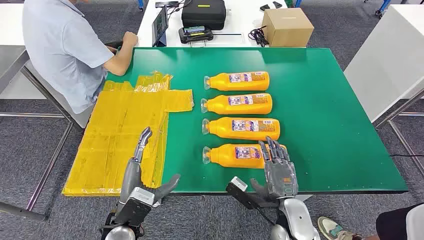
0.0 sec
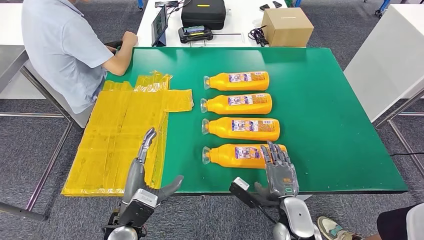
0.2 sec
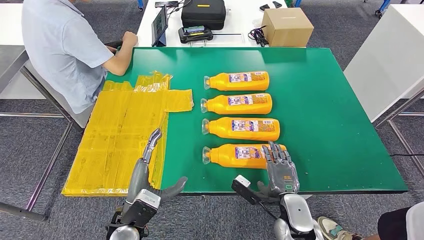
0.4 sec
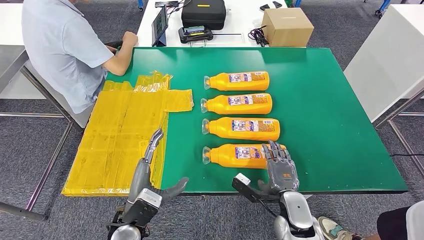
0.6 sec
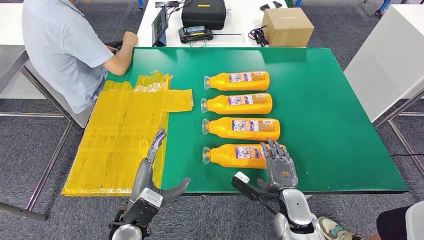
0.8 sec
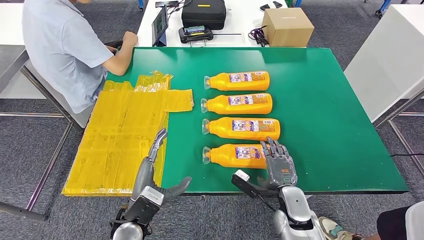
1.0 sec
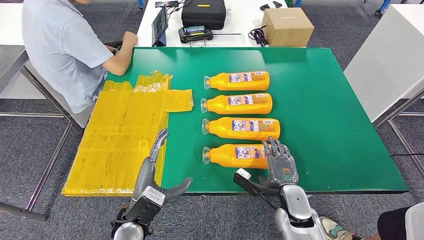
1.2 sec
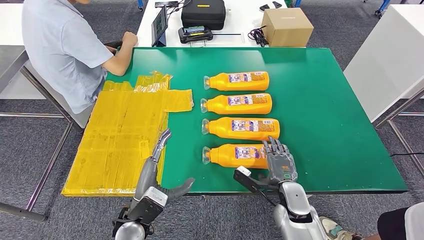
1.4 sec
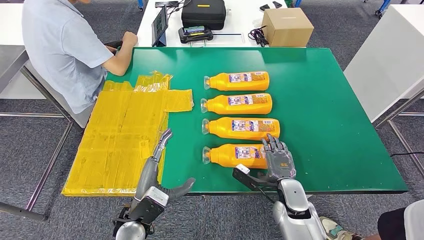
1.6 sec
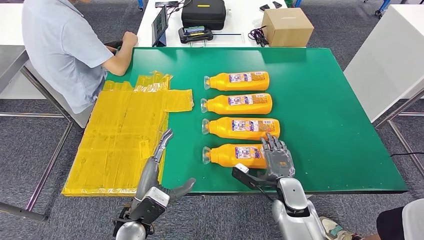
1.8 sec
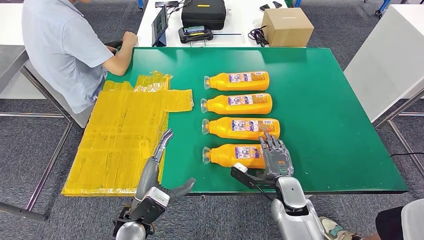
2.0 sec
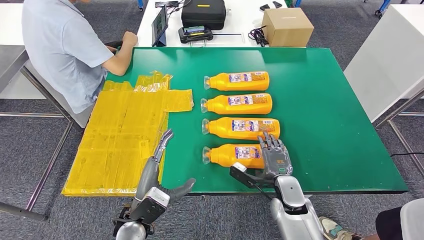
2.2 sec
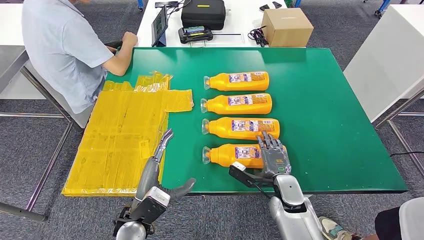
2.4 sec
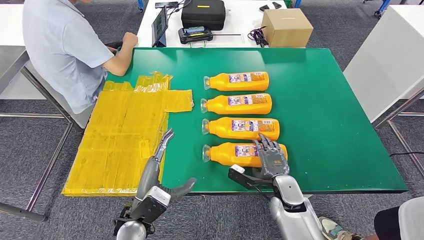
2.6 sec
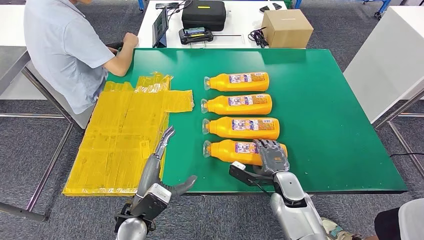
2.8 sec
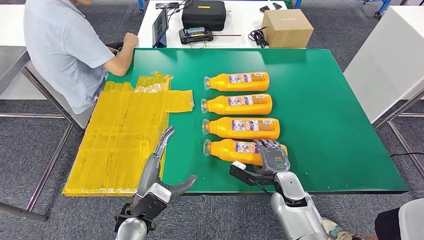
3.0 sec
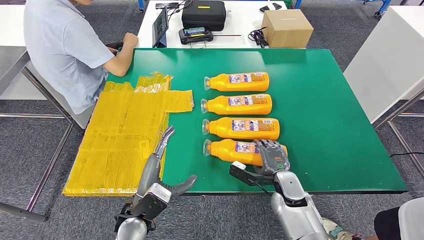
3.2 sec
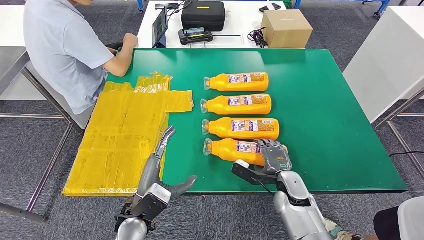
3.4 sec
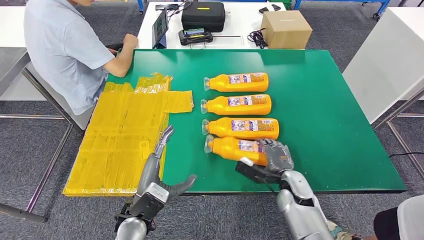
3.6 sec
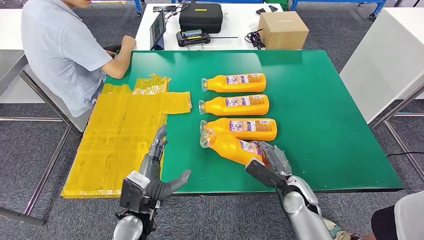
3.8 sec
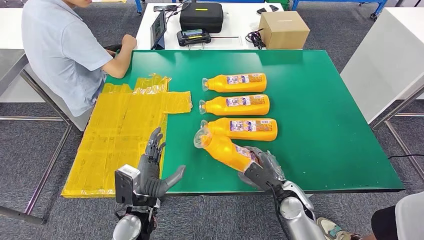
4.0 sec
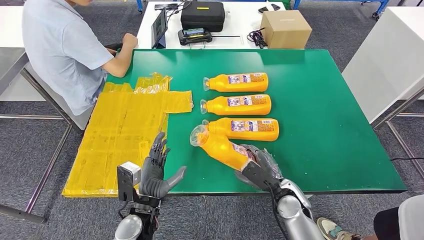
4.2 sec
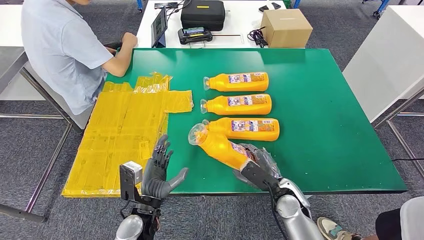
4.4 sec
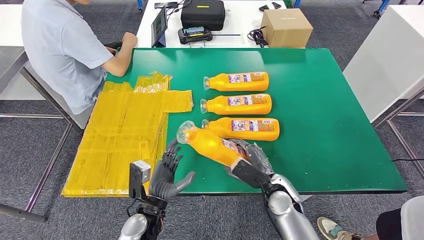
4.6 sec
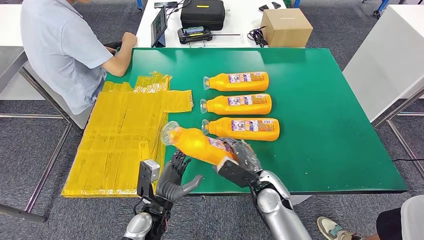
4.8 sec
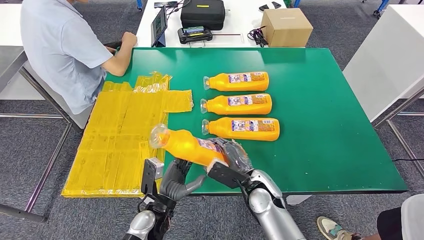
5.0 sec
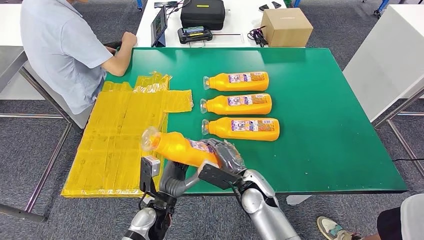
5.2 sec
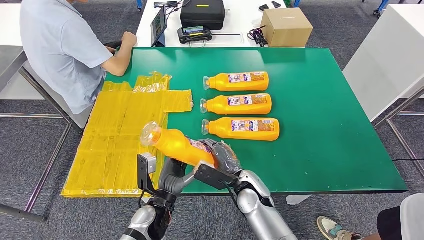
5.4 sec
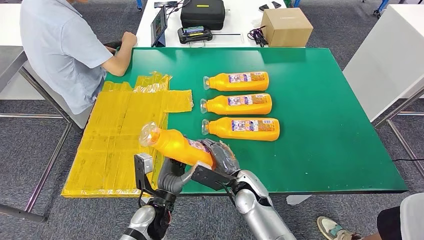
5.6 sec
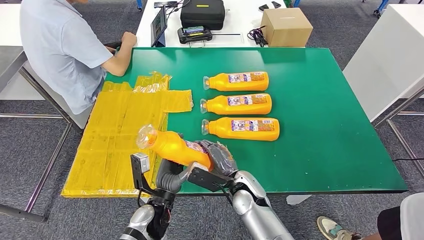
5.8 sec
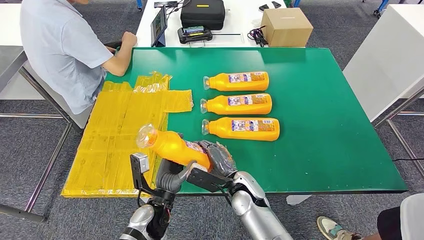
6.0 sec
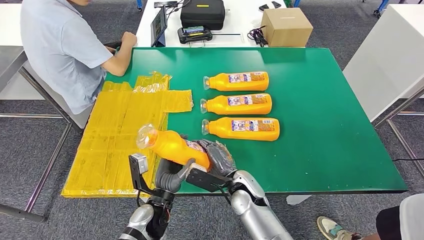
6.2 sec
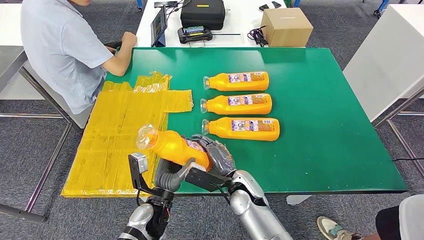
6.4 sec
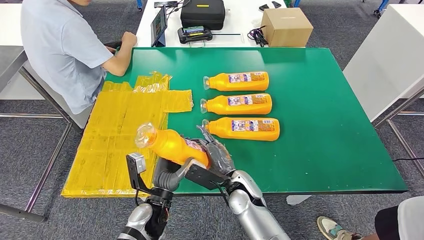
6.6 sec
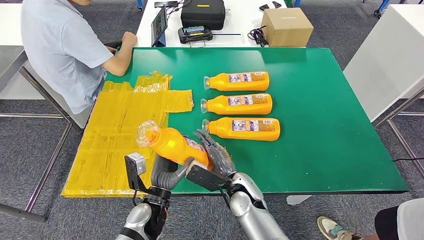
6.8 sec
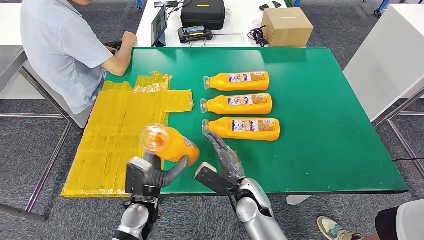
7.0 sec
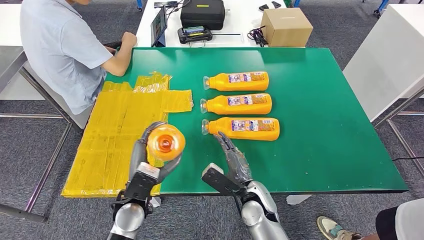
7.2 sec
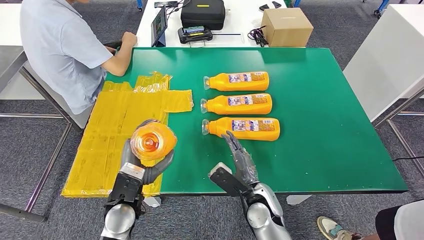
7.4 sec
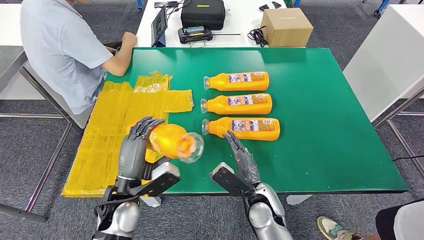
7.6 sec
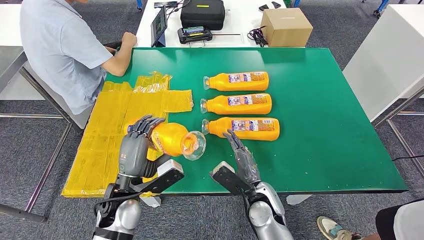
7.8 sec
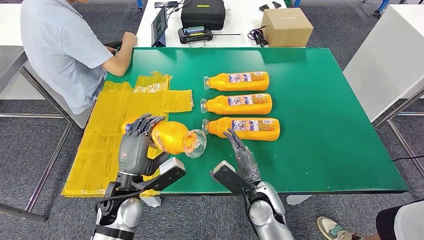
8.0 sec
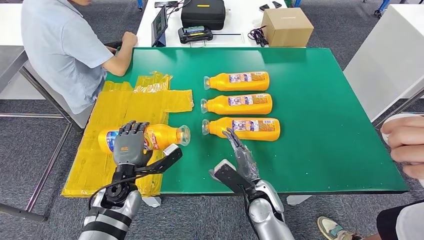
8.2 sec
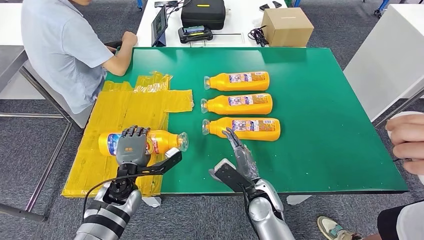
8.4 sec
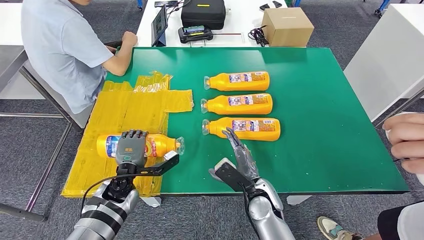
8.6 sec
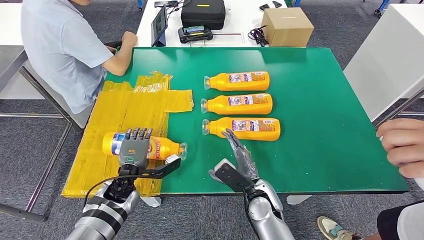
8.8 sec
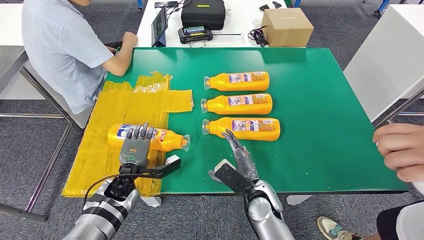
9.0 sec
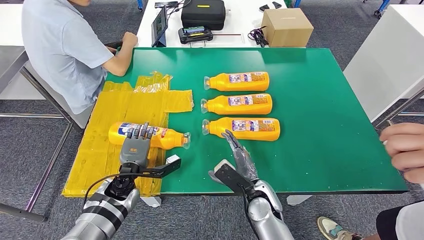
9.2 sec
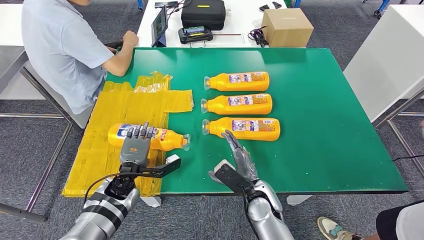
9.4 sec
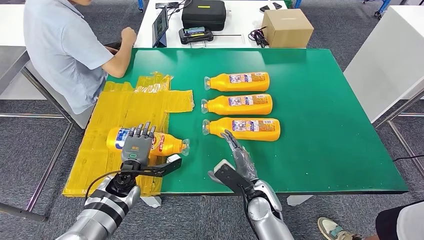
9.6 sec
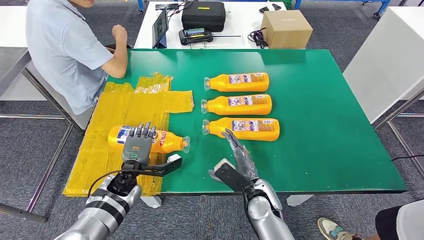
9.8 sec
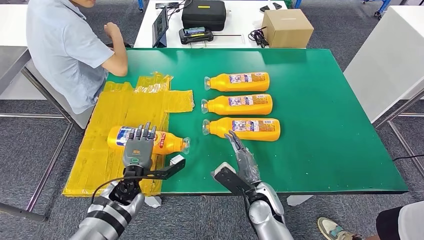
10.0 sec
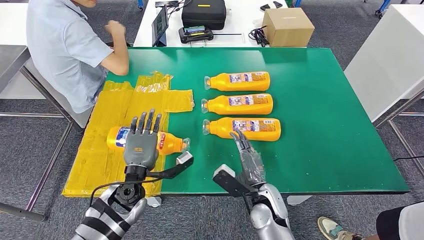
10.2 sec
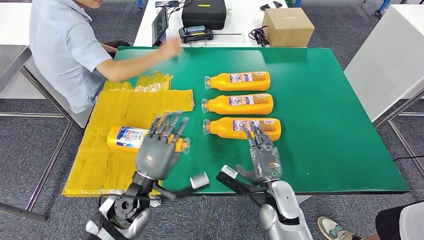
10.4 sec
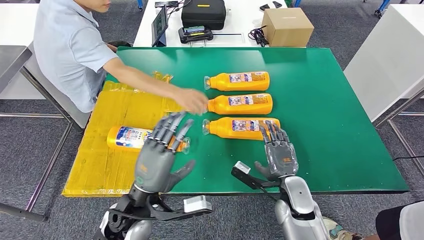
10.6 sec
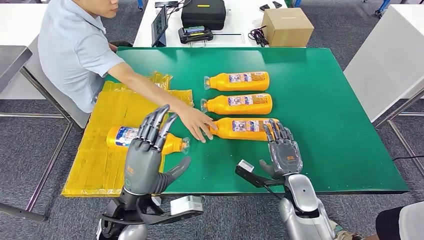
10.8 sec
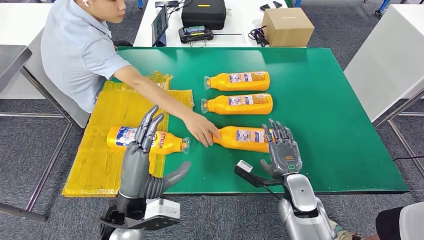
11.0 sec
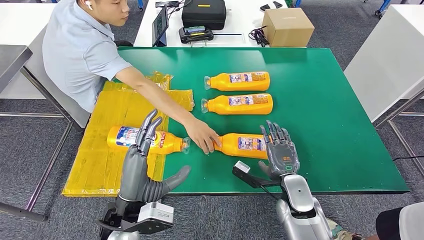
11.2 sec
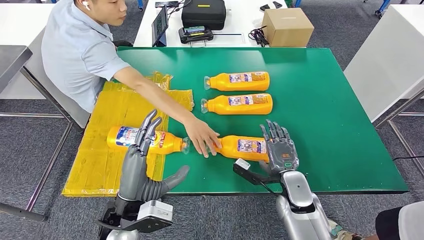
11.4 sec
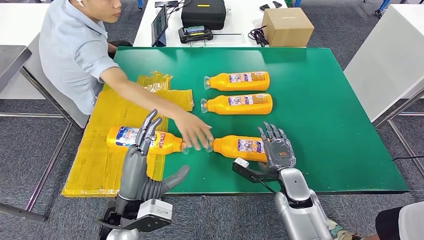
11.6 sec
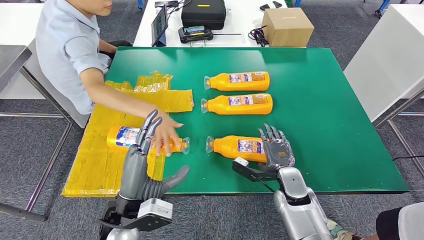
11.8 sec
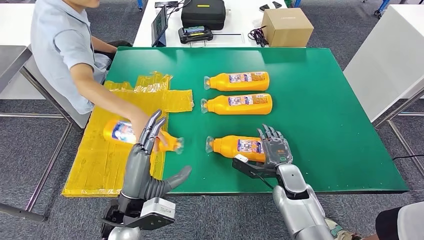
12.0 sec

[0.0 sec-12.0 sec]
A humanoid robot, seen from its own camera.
Step, 0.0 sec to 4.8 sec: Take the fast-moving consumer goods bottle from the table.
Step, 5.2 sec to 9.8 sec: Flip the fast-moving consumer goods bottle to the front side.
1.6 sec to 3.0 sec: The hands move only a little.
4.4 sec to 6.0 sec: The right hand shifts about 10 cm to the left.
6.0 sec to 7.6 sec: The left hand shifts about 10 cm upward and to the left. The right hand ends up about 5 cm from where it was.
7.6 sec to 9.0 sec: The left hand shifts approximately 10 cm downward and forward.
9.0 sec to 10.4 sec: The left hand travels upward, backward and to the right by some 10 cm.
10.4 sec to 12.0 sec: The right hand heads forward and to the right, covering some 10 cm; the left hand shifts by some 5 cm.

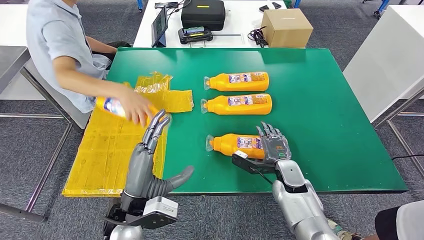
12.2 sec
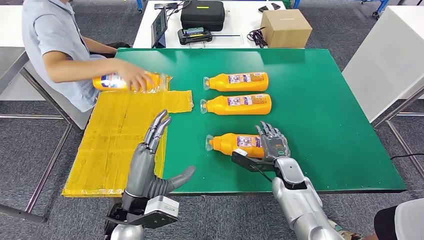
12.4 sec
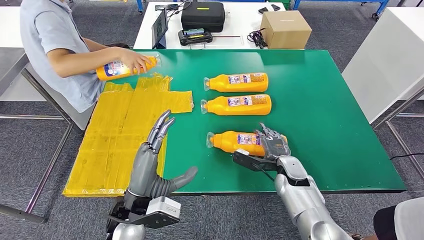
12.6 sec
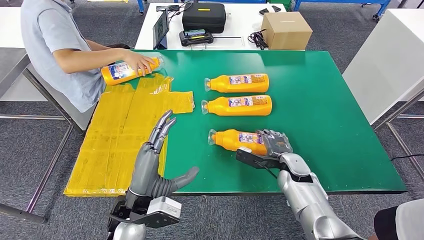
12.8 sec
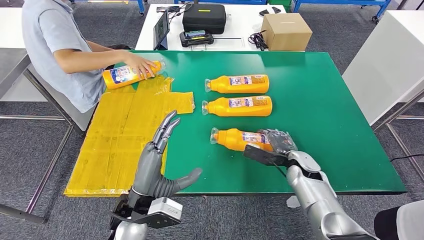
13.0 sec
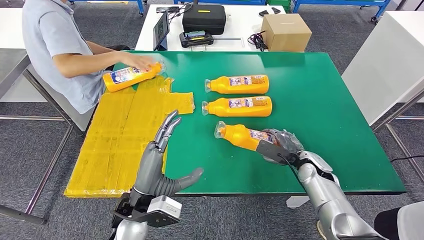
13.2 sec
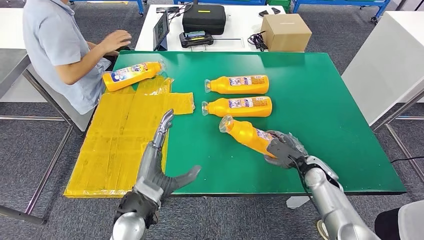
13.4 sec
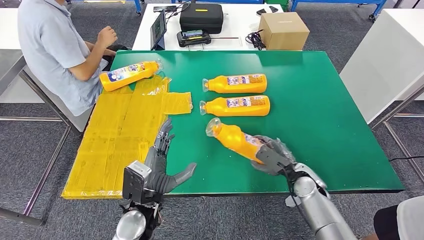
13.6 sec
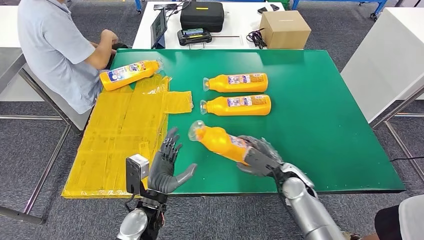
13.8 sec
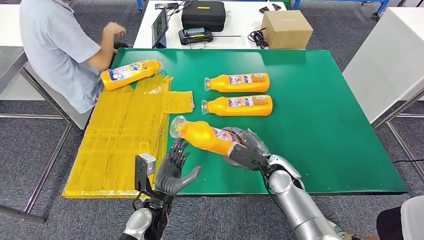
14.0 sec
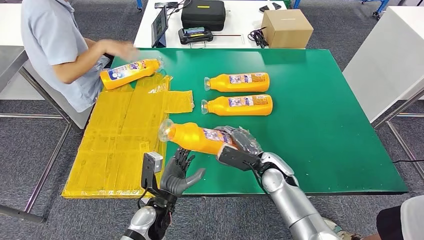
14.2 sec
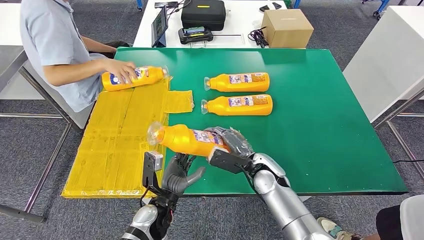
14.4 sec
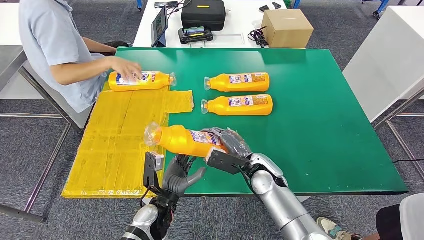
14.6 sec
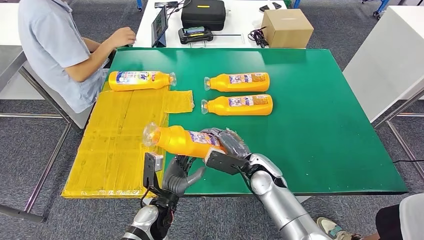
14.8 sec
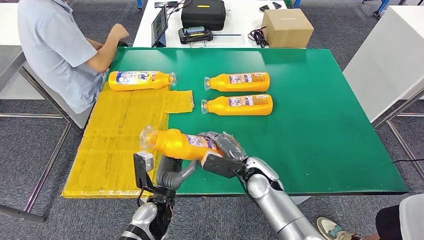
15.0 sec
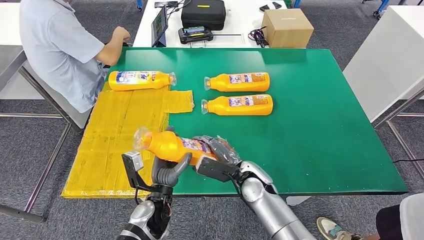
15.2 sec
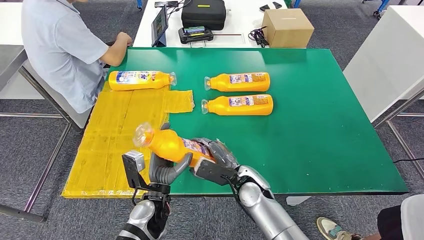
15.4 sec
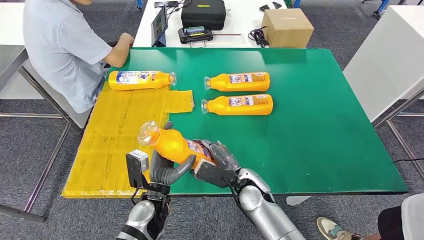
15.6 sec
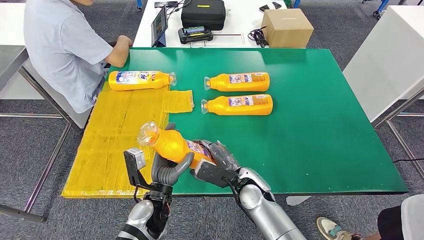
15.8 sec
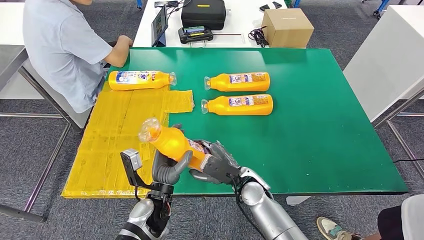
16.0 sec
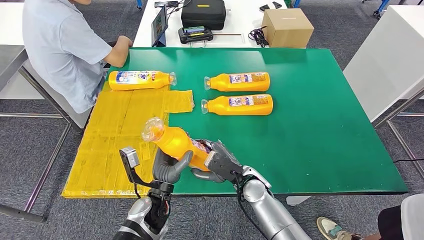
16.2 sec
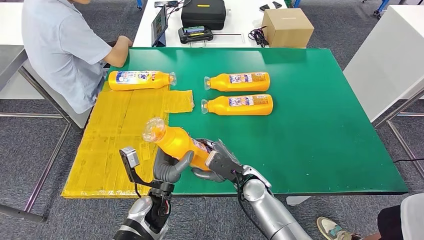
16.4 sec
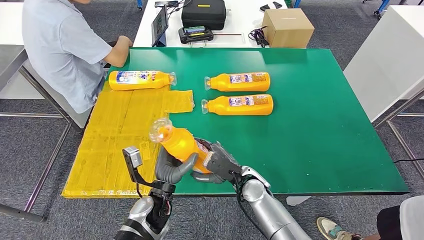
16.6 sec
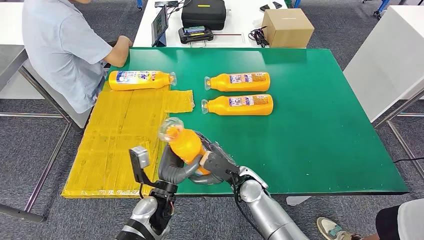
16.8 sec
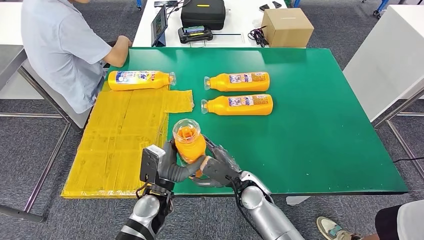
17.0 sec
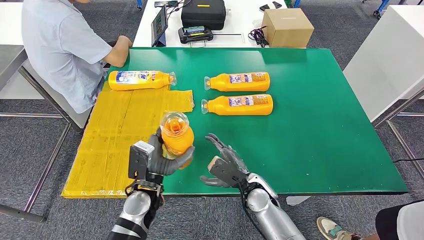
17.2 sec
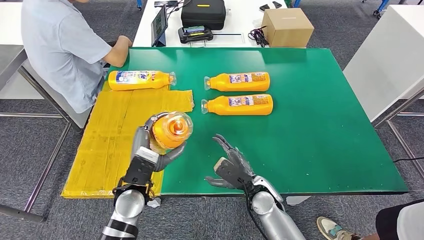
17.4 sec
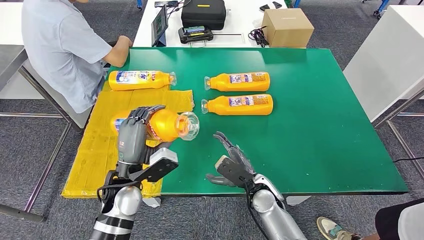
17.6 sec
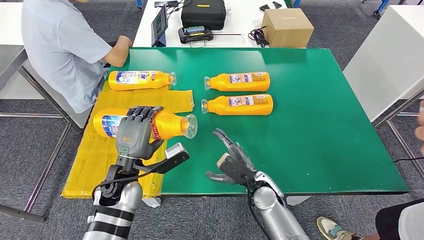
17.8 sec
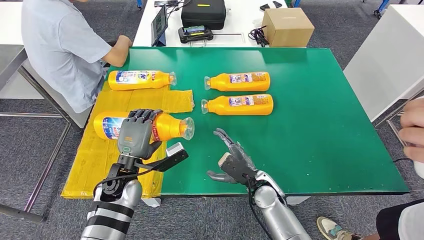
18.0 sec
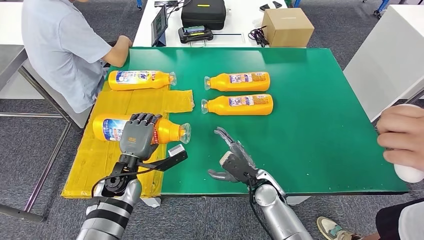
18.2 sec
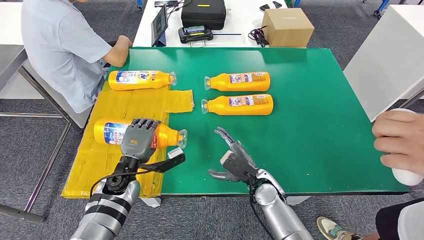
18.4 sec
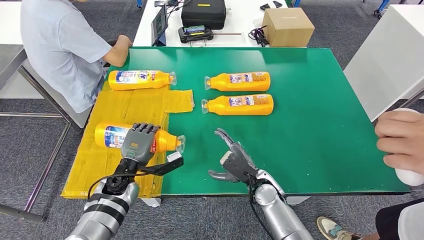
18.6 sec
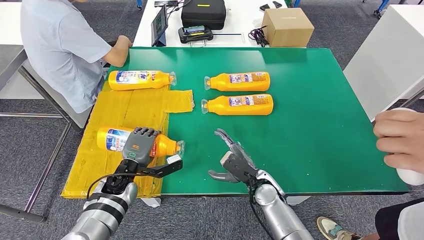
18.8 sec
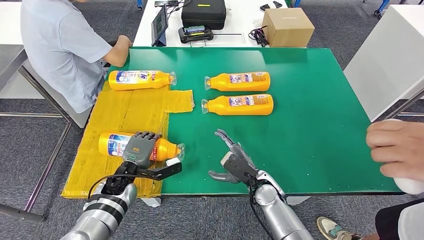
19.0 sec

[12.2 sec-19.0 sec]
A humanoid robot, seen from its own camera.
15.0 sec to 16.2 sec: The hands stay close to where they were, moving slightly.
16.2 sec to 17.6 sec: The left hand travels upward and to the left by some 10 cm.
17.6 sec to 19.0 sec: The left hand is displaced downward by about 10 cm.
